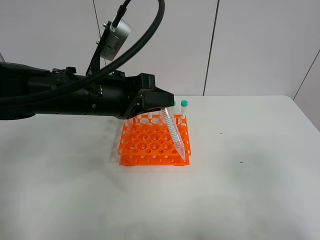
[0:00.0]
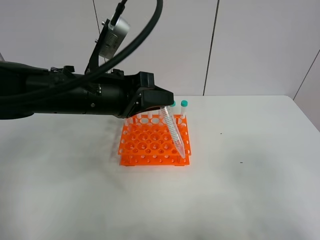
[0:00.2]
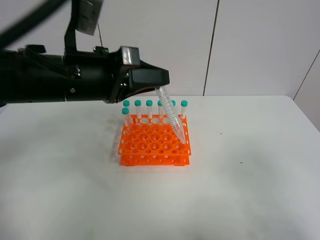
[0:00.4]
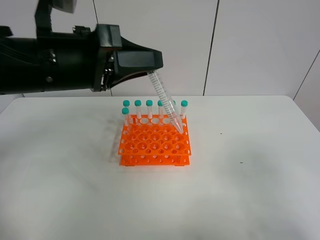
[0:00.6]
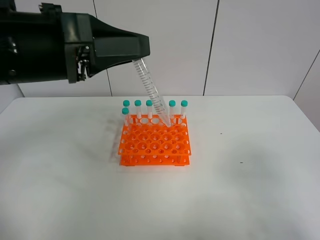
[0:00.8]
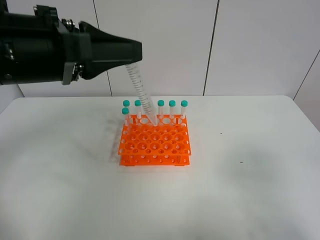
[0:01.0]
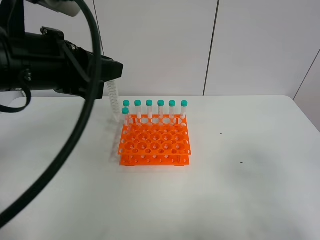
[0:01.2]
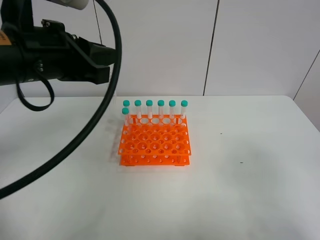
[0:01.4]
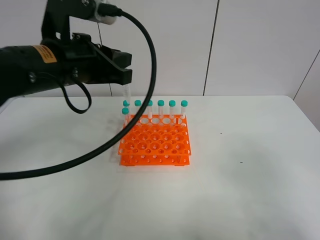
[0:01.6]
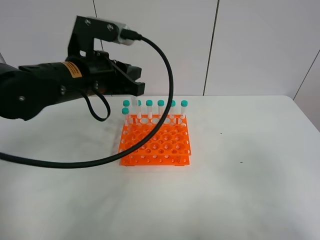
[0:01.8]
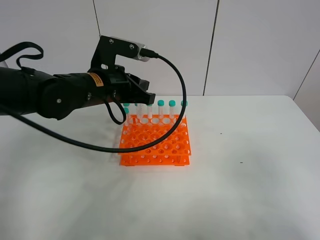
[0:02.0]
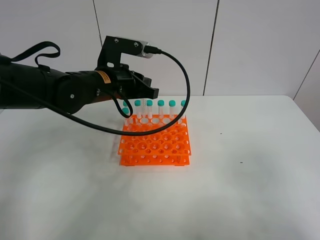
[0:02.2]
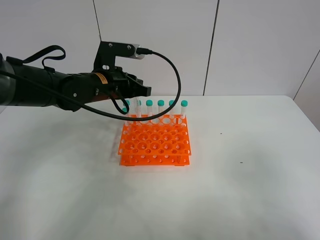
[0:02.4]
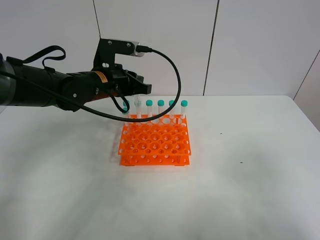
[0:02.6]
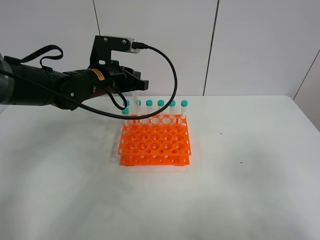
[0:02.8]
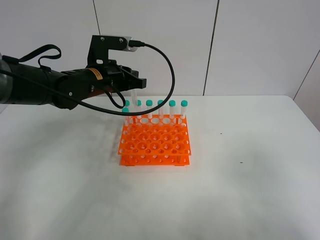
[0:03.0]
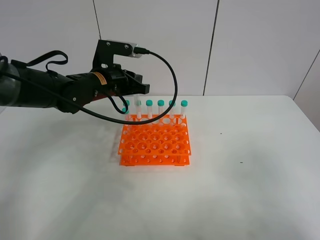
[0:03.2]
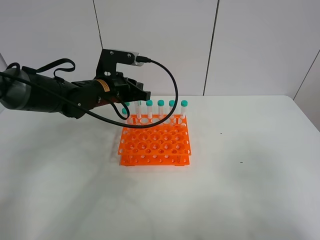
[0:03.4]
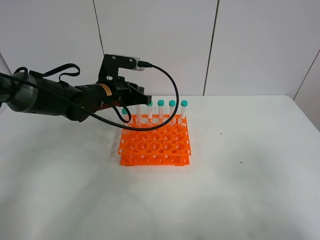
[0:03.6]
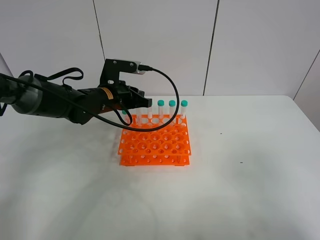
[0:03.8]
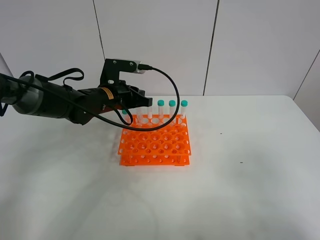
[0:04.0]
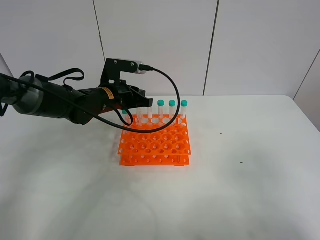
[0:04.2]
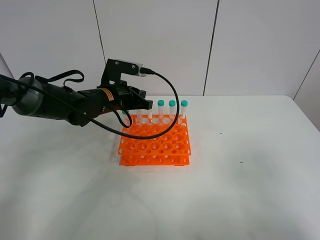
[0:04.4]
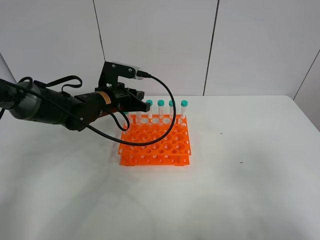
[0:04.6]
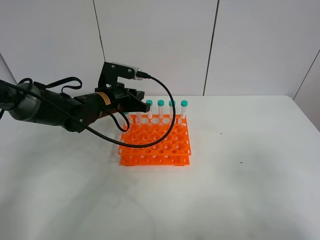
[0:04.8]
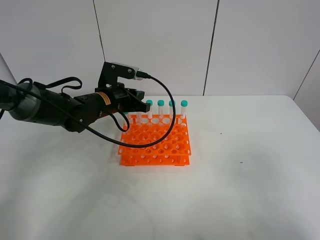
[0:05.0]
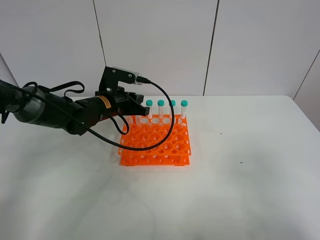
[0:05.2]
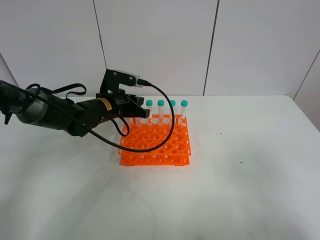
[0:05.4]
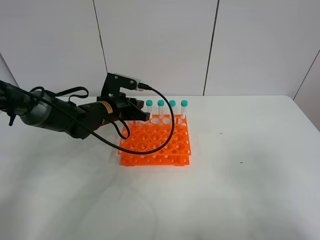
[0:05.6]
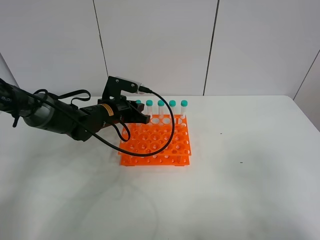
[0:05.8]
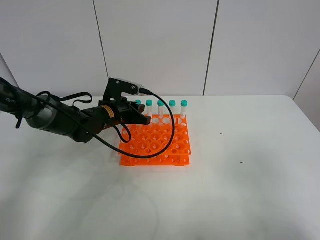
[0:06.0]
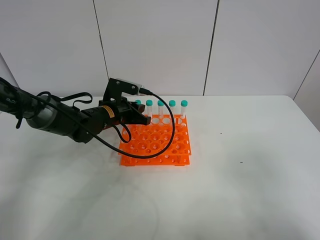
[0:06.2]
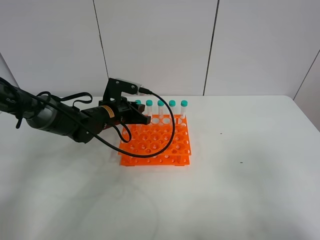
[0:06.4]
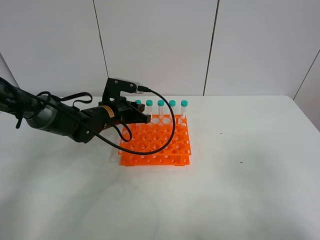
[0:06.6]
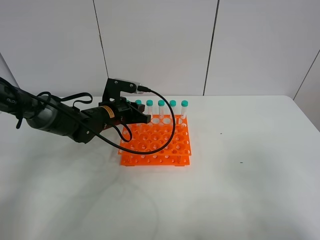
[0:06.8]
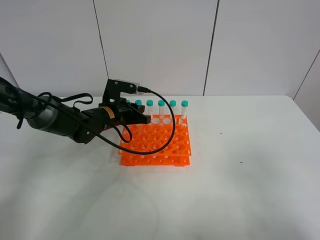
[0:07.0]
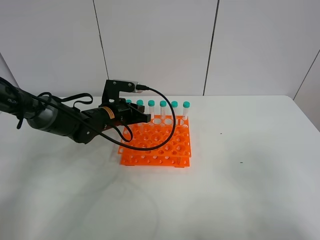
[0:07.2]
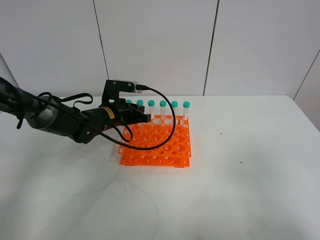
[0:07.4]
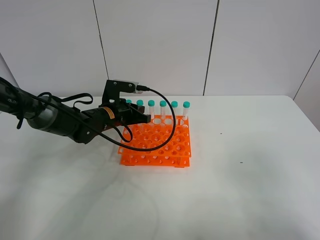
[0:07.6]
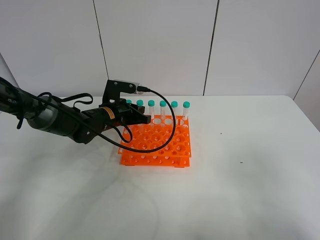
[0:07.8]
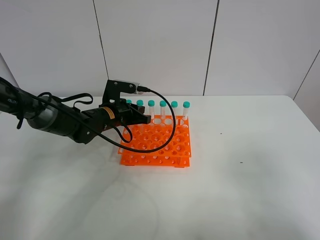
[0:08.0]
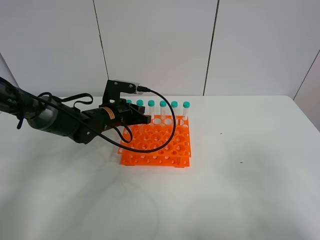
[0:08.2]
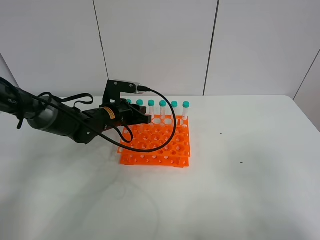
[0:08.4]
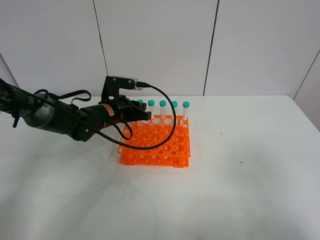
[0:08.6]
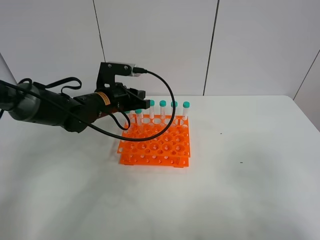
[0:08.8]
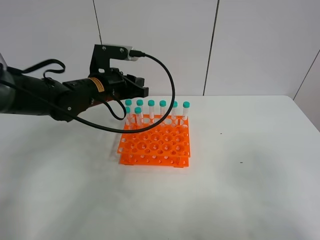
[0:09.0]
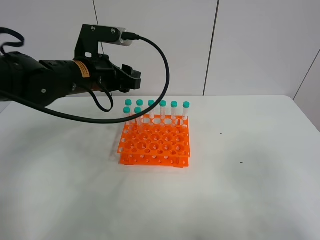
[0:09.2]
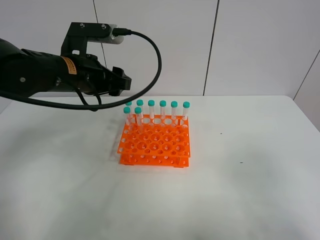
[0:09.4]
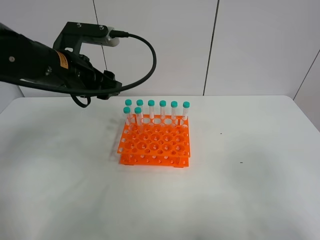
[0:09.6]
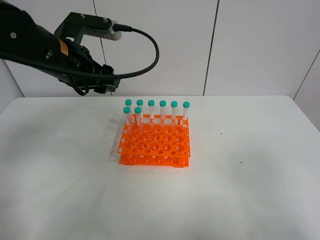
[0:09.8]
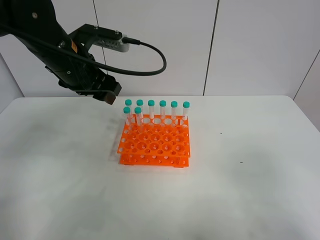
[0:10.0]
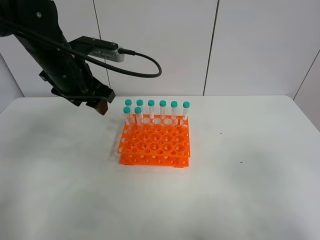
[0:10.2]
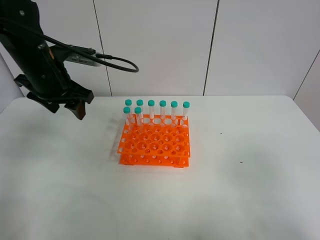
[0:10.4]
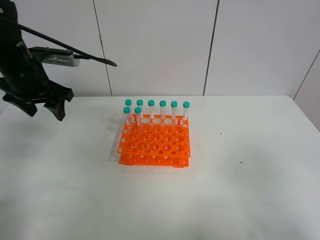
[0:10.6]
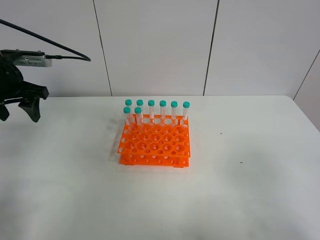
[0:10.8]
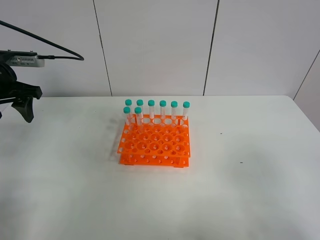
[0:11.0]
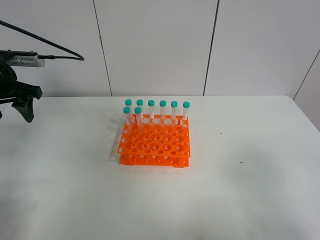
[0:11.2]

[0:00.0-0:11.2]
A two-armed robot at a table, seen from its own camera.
Task of the whole recording: Put the test tube on the table back onto the test tube rack.
Step, 0:00.0 to 0:08.4: Place the test tube on the test tube rack with the left gripper.
0:00.0 to 0:01.6: The left gripper travels upward by approximately 5 cm.
0:01.6 to 0:03.2: The left gripper is displaced forward and downward by about 15 cm.
0:03.2 to 0:04.8: The grippers stay close to where they were, moving slightly.
0:04.8 to 0:08.0: The grippers make only small movements.
0:08.0 to 0:09.6: The left gripper moves upward and backward, approximately 20 cm, and opens up.
0:09.6 to 0:11.2: The left gripper shifts about 15 cm to the left.

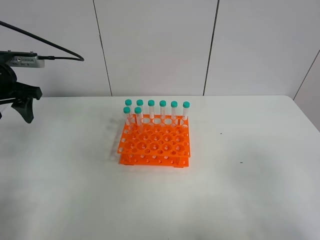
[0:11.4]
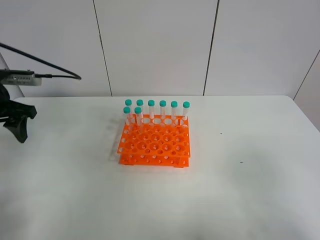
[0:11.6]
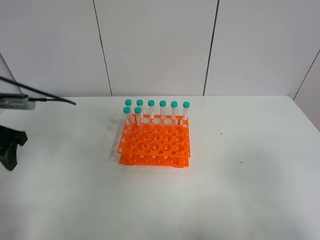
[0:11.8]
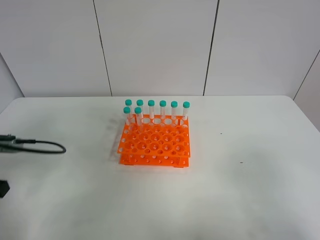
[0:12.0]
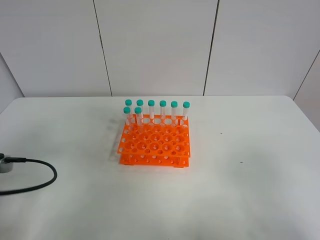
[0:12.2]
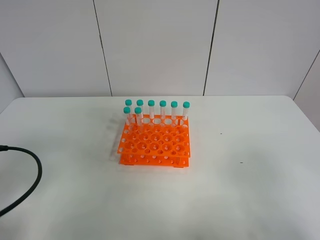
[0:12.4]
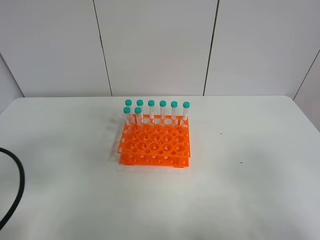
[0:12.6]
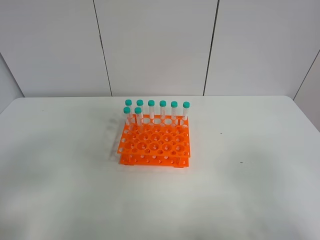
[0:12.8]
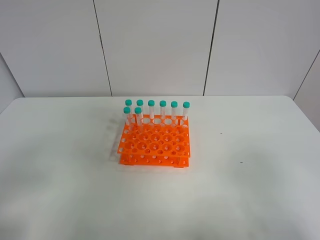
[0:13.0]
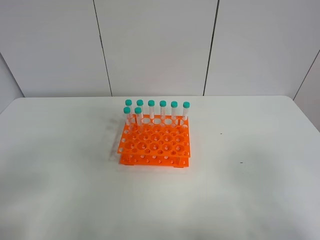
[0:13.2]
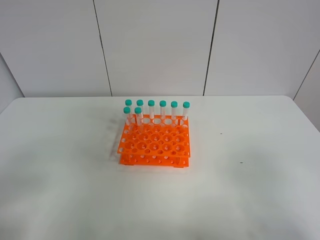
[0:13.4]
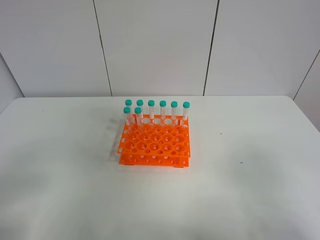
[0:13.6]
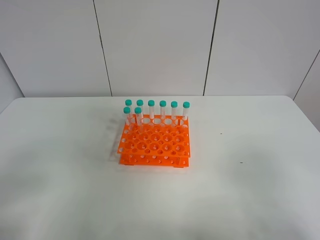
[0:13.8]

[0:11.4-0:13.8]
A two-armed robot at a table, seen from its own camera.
Task of the whole recording: Put the test tube on the table back onto the test tube rack.
0:11.4 to 0:12.6: The left gripper shifts roughly 25 cm backward.
0:12.6 to 0:13.8: The left gripper moves backward, approximately 10 cm.

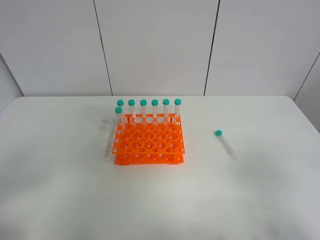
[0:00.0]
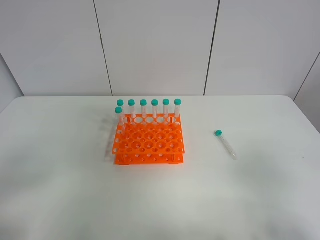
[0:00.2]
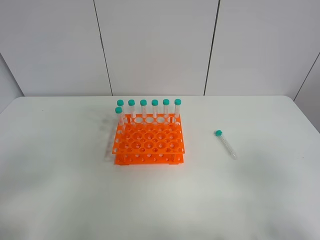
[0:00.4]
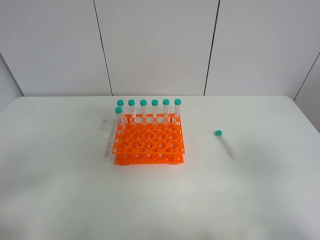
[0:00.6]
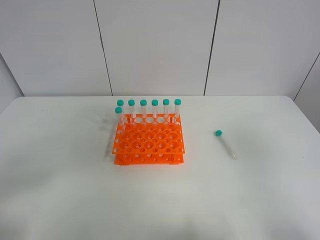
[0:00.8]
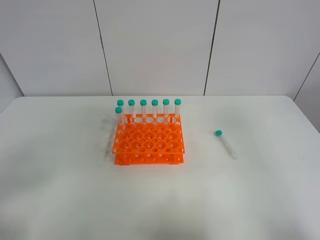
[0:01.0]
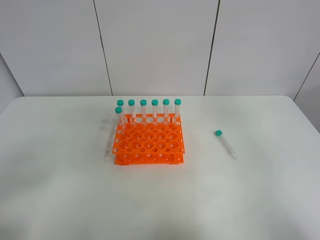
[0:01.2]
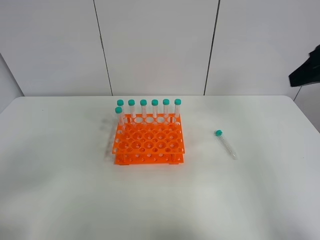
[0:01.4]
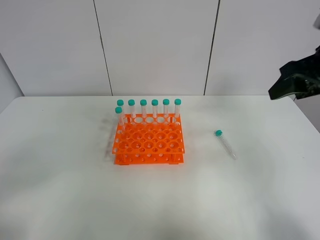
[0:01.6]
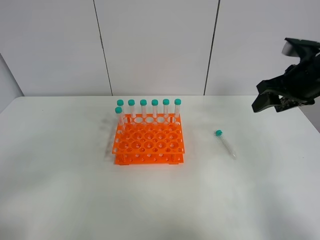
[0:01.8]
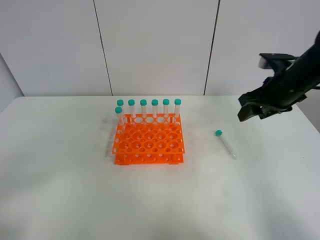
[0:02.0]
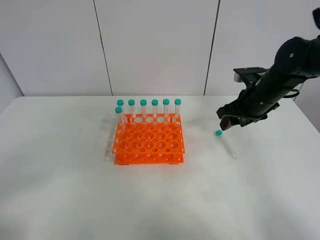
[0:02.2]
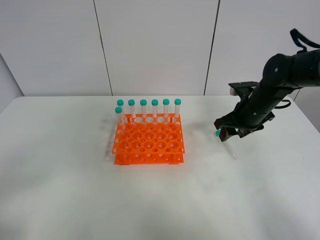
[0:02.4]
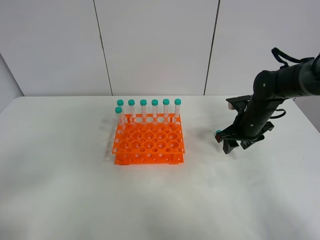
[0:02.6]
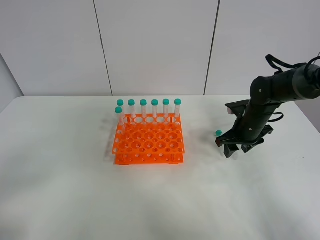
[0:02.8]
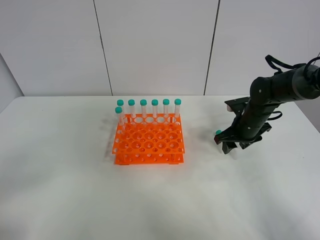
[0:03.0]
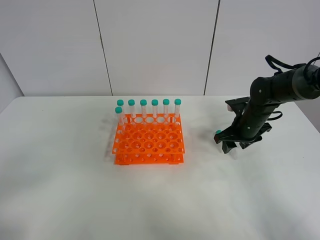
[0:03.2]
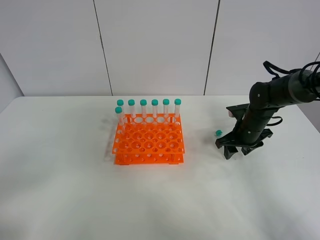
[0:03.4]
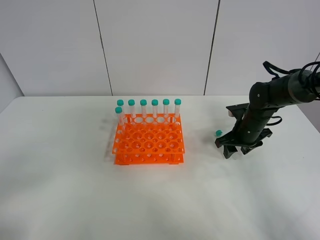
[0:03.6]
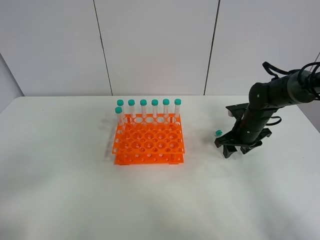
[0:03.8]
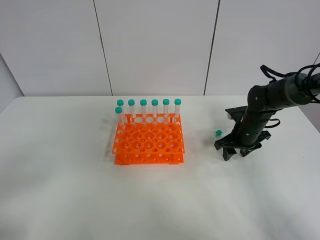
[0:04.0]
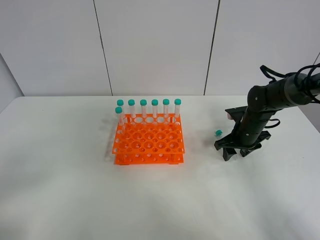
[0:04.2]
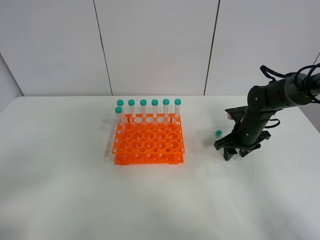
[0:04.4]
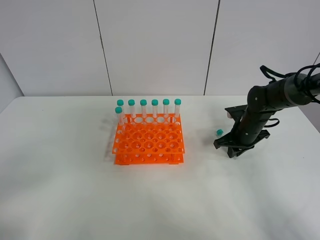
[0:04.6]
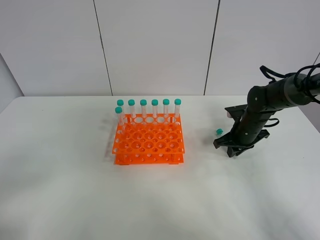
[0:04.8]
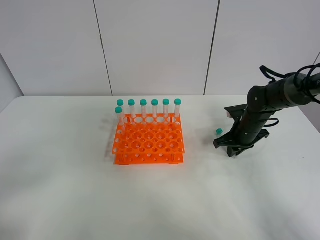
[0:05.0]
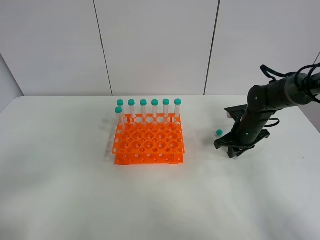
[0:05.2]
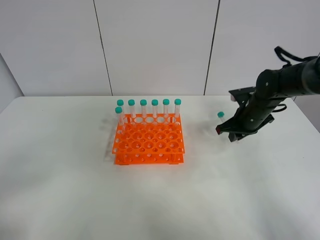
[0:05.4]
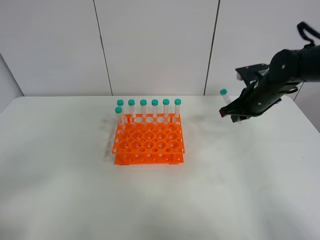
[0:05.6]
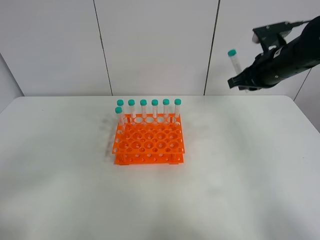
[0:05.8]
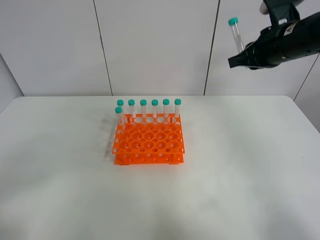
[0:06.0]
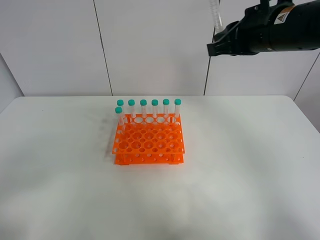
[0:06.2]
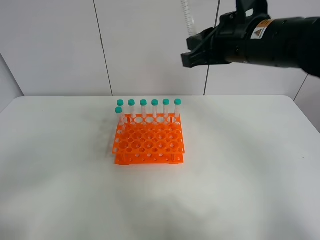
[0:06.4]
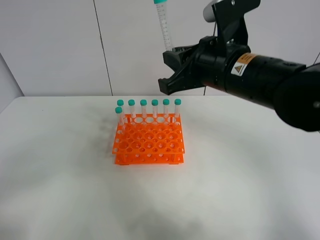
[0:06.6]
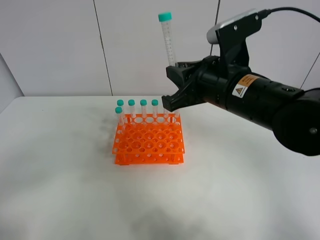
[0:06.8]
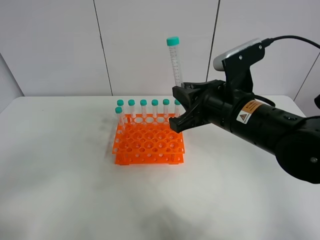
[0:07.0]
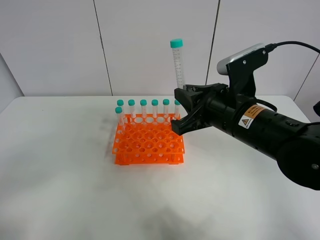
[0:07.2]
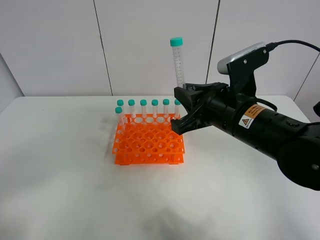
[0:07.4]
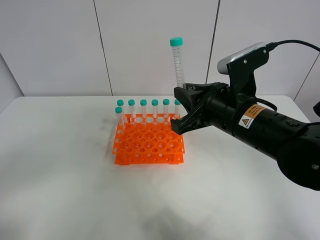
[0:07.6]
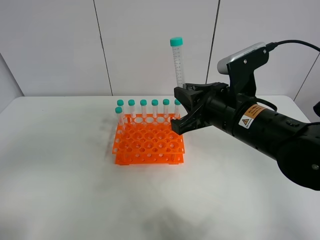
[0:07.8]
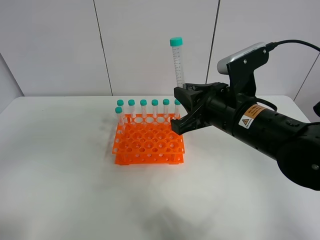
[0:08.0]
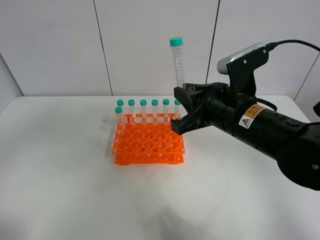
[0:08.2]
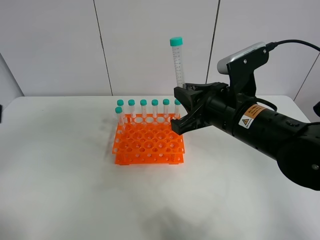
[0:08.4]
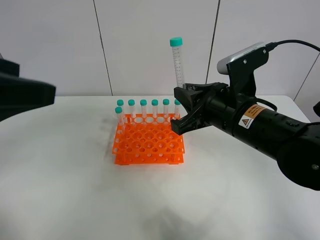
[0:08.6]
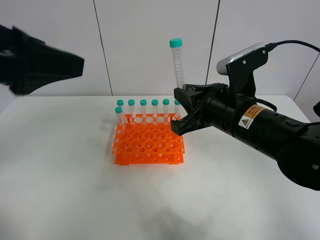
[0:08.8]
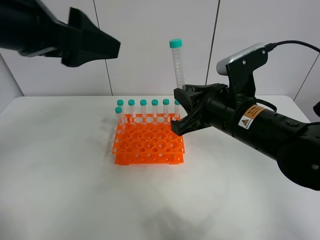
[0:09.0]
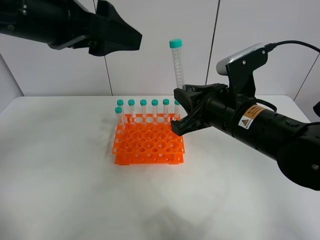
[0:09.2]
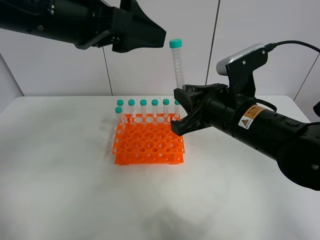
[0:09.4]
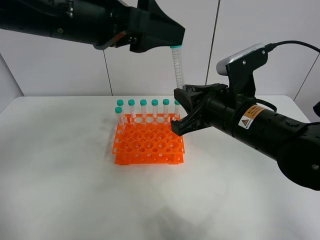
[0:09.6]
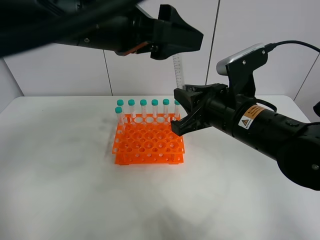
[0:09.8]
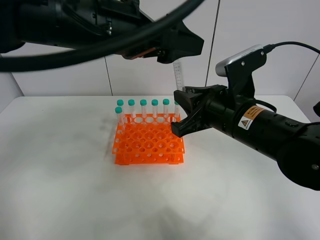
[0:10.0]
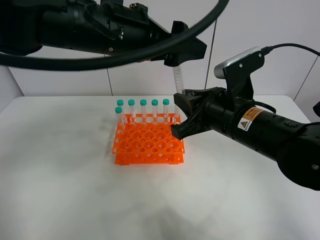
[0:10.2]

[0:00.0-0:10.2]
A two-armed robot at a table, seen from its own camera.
Task of the whole recording: Put the test tube on the table back onto the test tube rack.
Step, 0:00.0 to 0:04.8: Pick up the test tube with the right gripper.
0:00.0 to 0:01.4: The right gripper moves forward and upward, roughly 25 cm.
0:01.4 to 0:03.0: The right gripper heads downward and forward, covering some 30 cm.
0:03.0 to 0:04.4: There are only small adjustments of the grippers.
0:04.4 to 0:05.8: The right gripper is displaced upward by some 20 cm, and closes up.
0:05.8 to 0:07.2: The right gripper heads backward and to the left, covering some 15 cm.
0:07.2 to 0:08.8: The left gripper travels forward, upward and to the right by some 25 cm.
0:08.8 to 0:10.2: The left gripper shifts roughly 15 cm forward and to the right.
